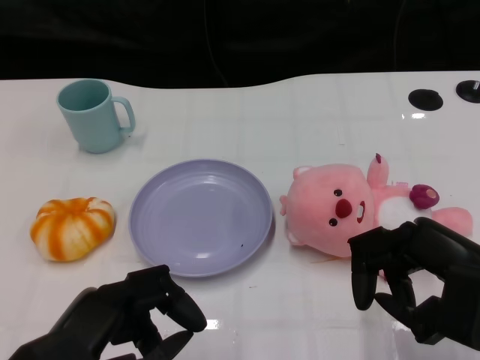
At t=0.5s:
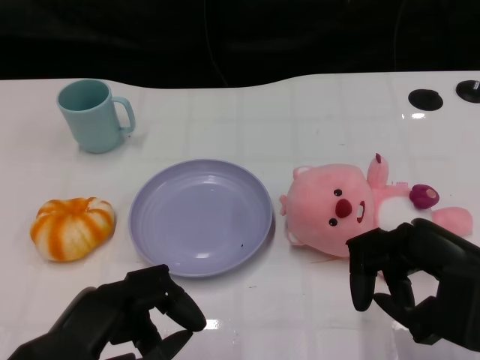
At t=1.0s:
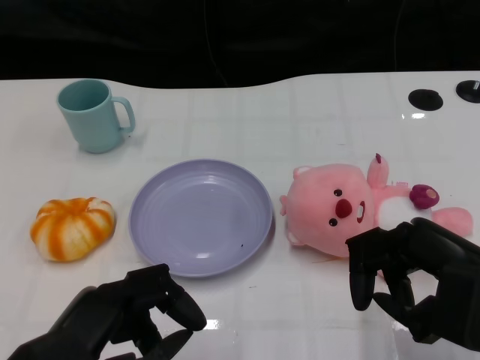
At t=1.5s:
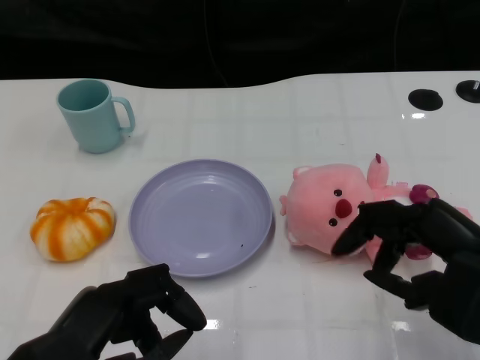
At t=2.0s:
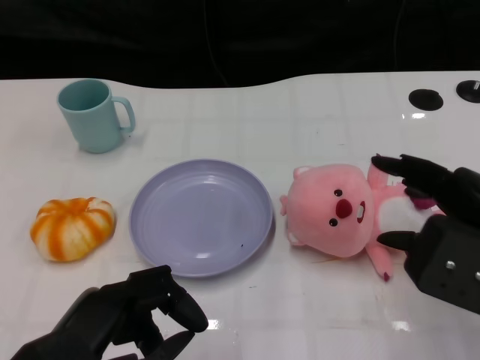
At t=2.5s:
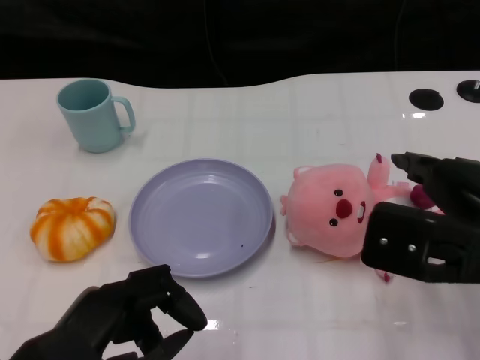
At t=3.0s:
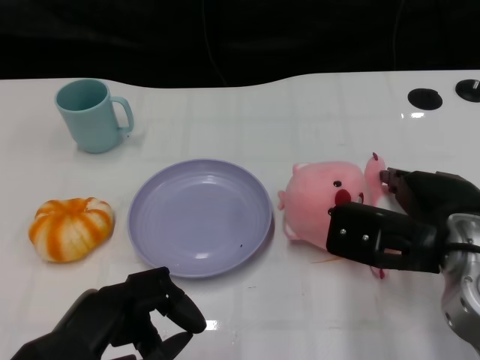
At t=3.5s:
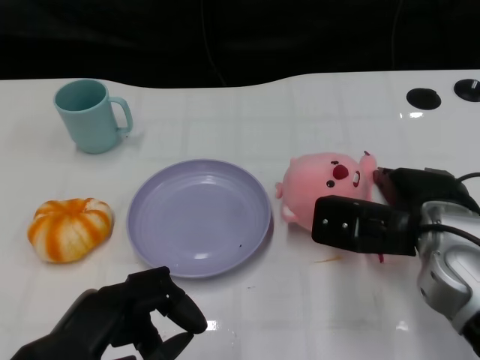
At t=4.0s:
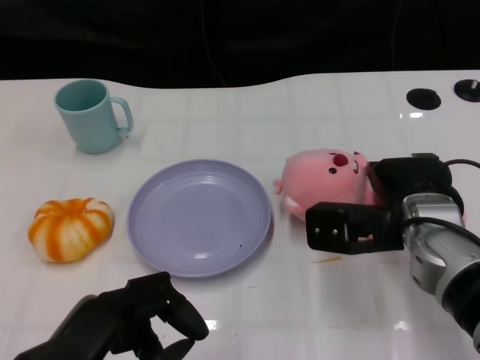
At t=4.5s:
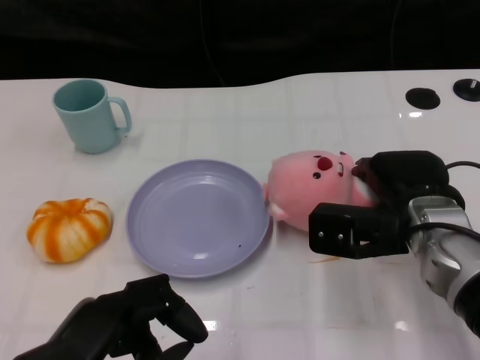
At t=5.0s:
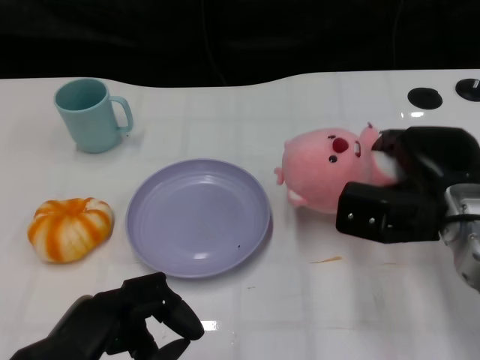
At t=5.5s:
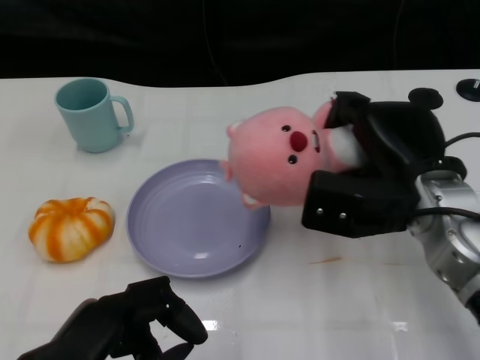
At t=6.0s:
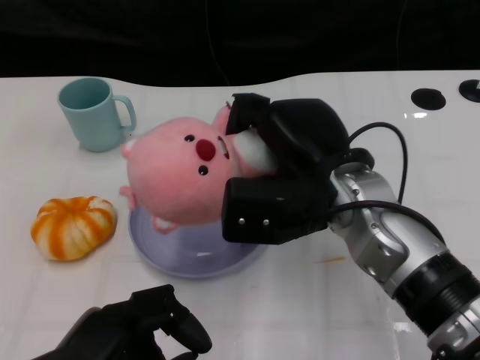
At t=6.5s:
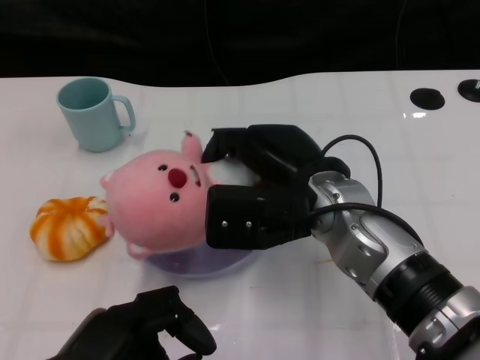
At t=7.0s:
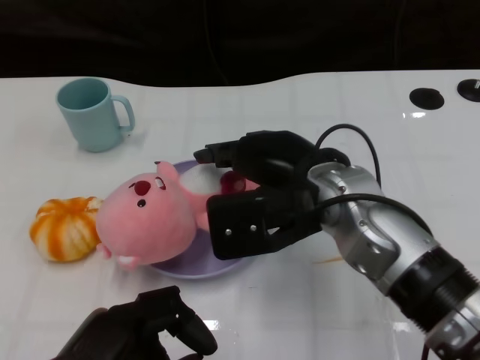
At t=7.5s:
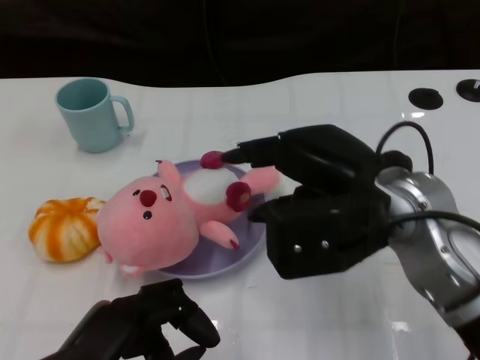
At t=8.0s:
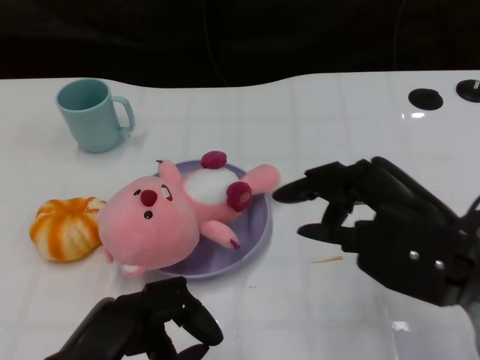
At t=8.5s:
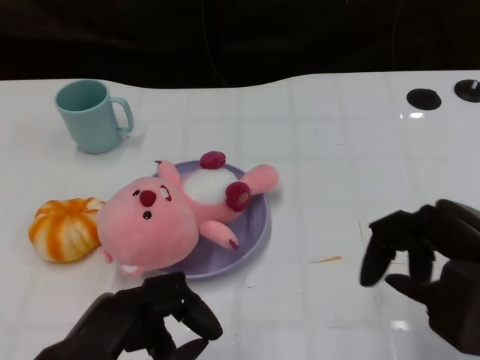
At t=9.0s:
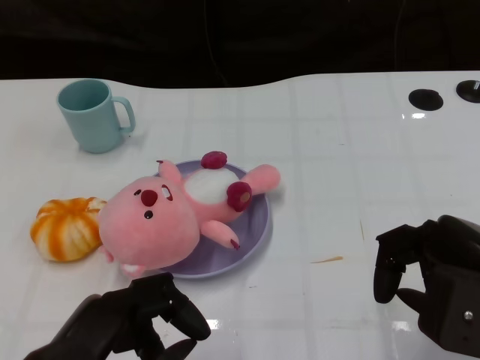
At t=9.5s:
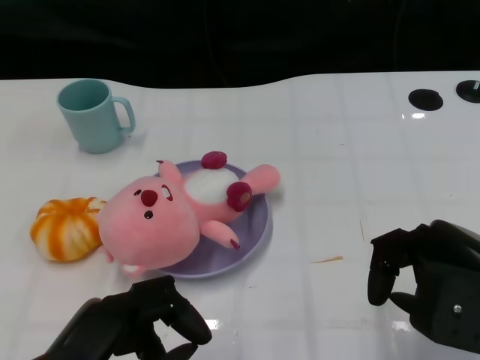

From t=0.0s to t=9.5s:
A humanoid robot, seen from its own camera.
Task of the whole recording: Pick up the doll on the other side of the plate and place it into the plate.
Step, from t=1.5s to t=5.0s: Grasp the pink doll with the right gripper.
Step, from t=5.5s to t=7.5s: Place the pink doll into the plate with the right gripper.
From t=2.0s to t=4.0s: The right hand goes approximately 15 cm forward, downward and to the left.
From t=5.5s to t=7.5s: The right hand ends up some 5 cm from where it was.
From t=7.5s to t=9.5s: The right hand shifts approximately 15 cm to the right and backward.

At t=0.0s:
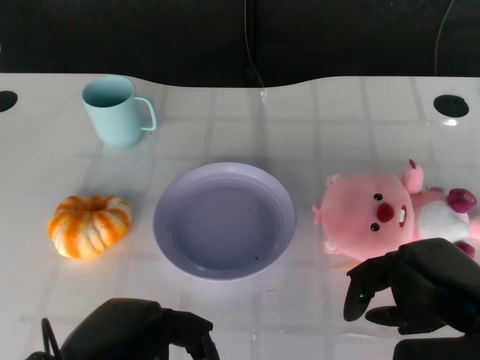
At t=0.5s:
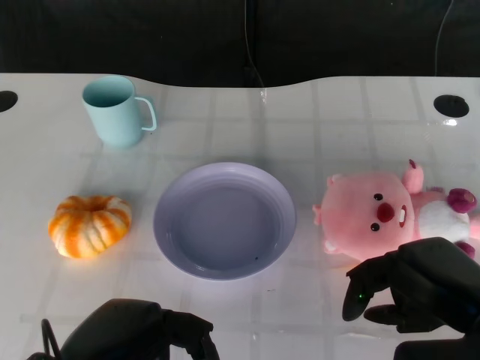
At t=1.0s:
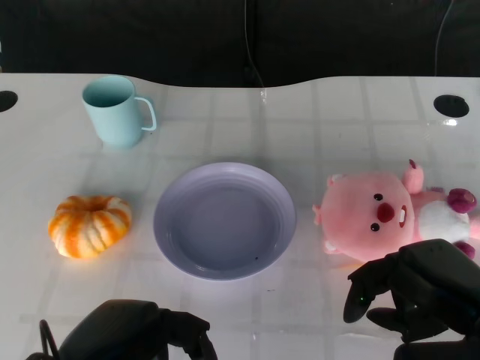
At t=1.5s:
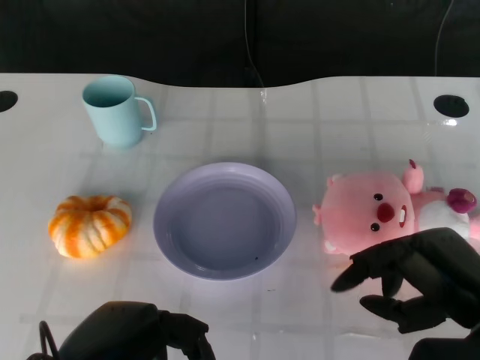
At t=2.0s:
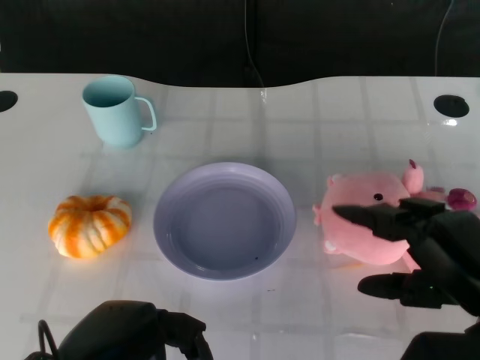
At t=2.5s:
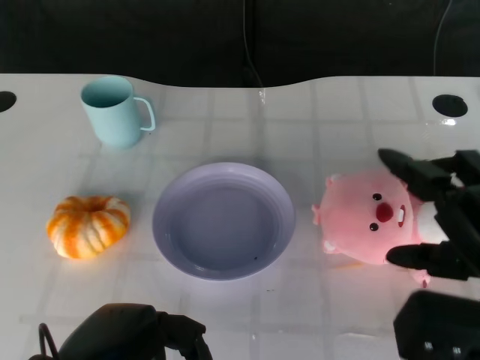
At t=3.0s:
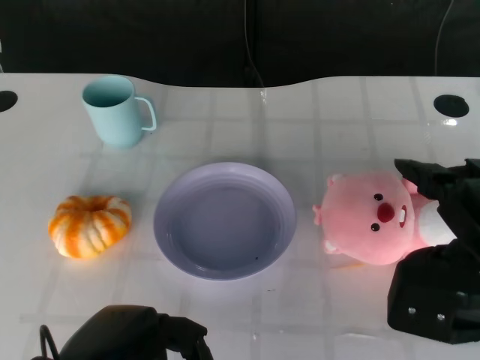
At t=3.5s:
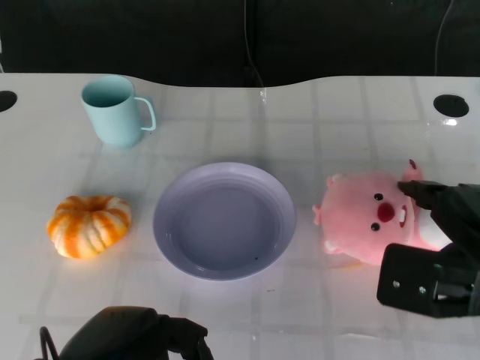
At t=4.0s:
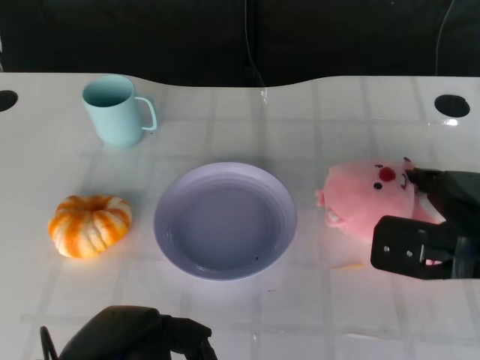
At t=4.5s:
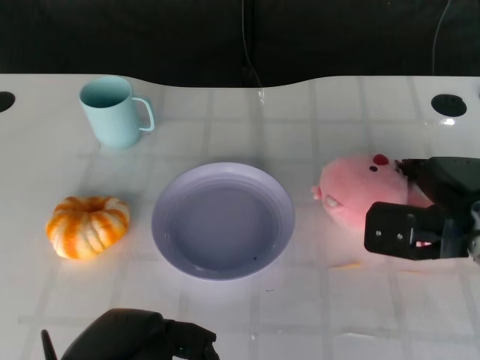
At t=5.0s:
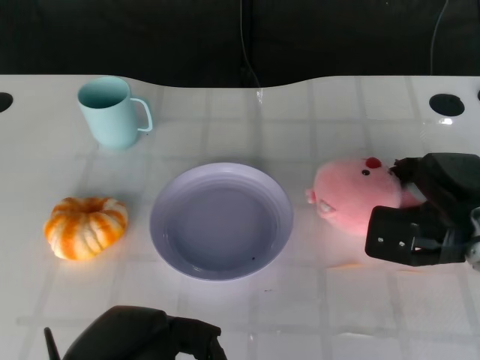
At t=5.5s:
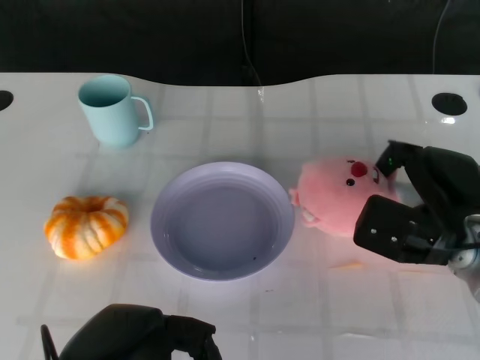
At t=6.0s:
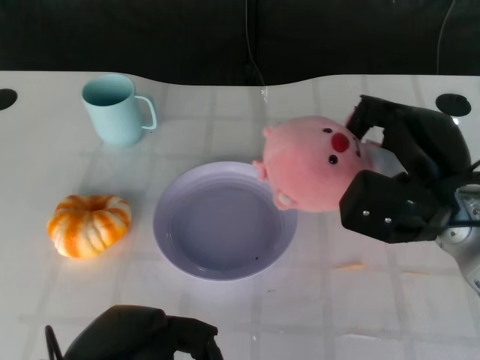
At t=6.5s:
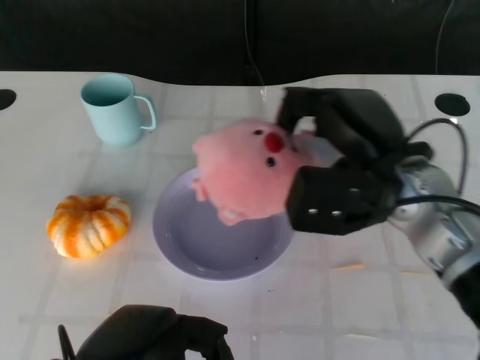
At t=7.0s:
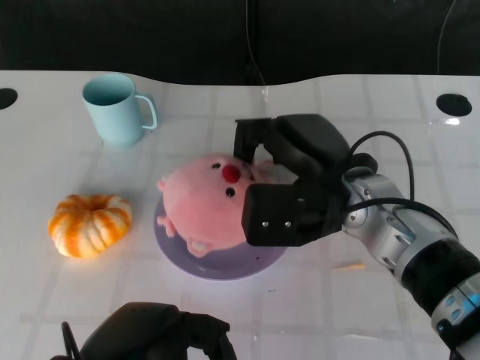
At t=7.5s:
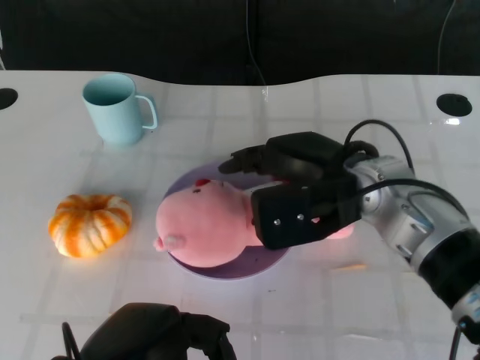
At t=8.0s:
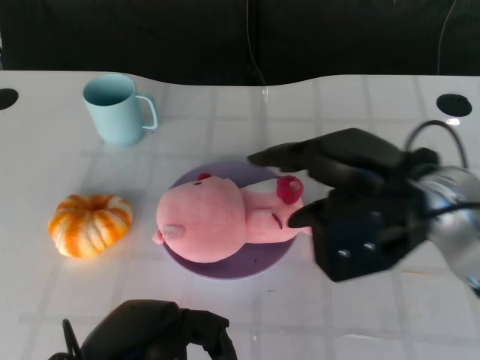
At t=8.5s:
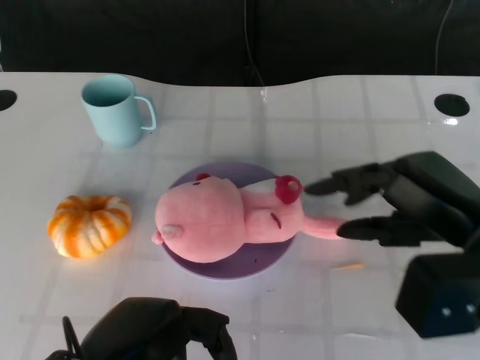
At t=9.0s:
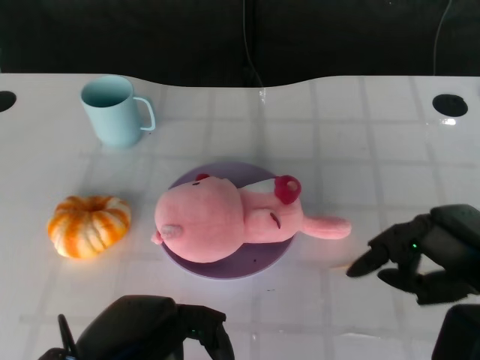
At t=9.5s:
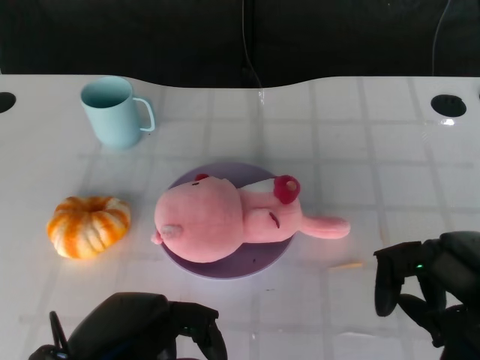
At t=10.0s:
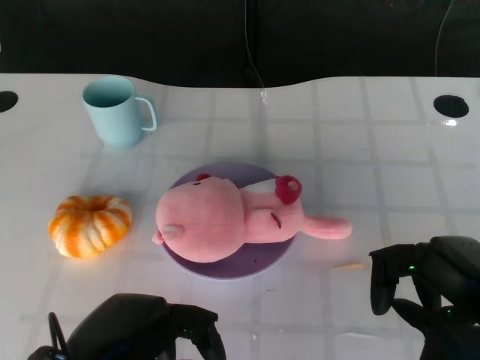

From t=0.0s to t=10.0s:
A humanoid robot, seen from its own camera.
Task of the whole recording: Pick up the doll on the other side of the plate and place it into the plate.
Step, from t=1.0s to t=6.0s: Grasp the pink doll with the right gripper.
Step, from t=6.5s to t=8.0s: Place the pink doll into the plate with the right gripper.
From t=2.0s to t=4.0s: The right hand travels forward by roughly 10 cm.
From t=4.0s to t=6.0s: The right hand moves about 5 cm.
From t=6.0s to t=8.0s: The right hand heads upward, covering some 5 cm.
From t=8.0s to t=10.0s: The right hand heads backward, to the right and downward, covering roughly 15 cm.

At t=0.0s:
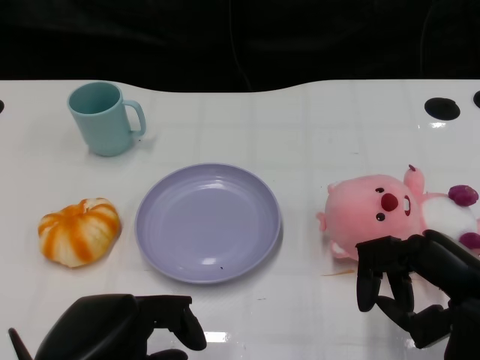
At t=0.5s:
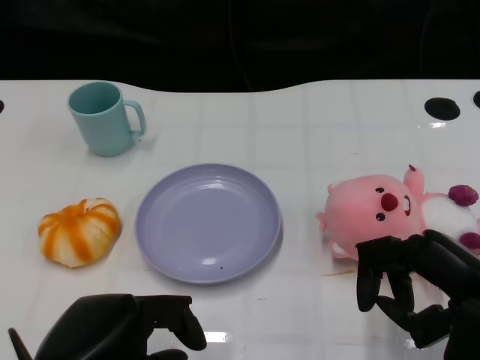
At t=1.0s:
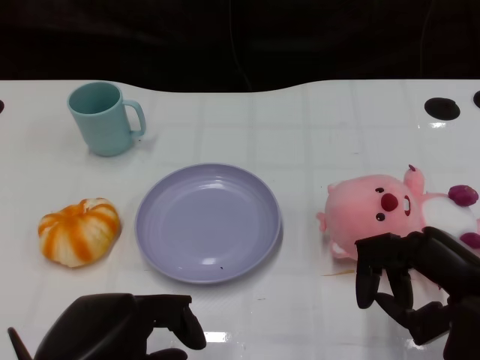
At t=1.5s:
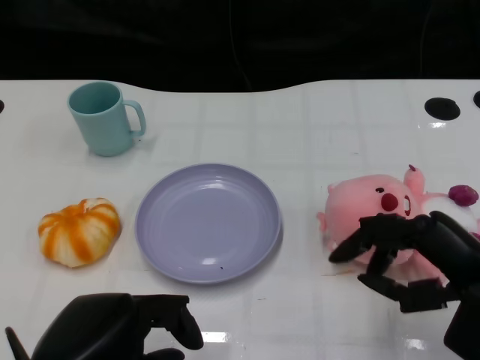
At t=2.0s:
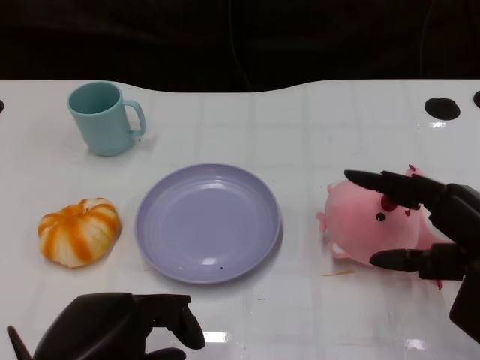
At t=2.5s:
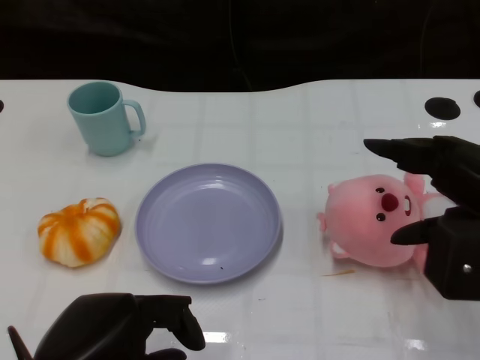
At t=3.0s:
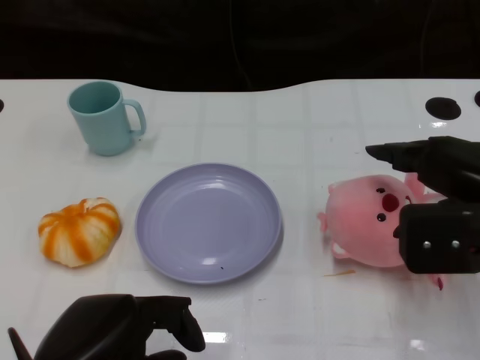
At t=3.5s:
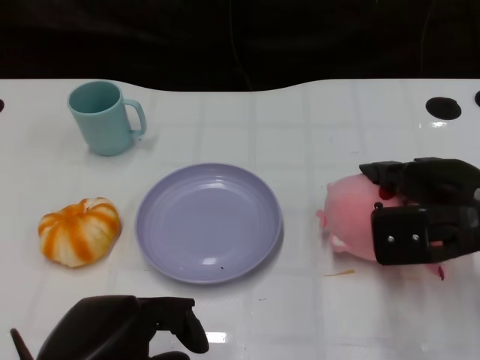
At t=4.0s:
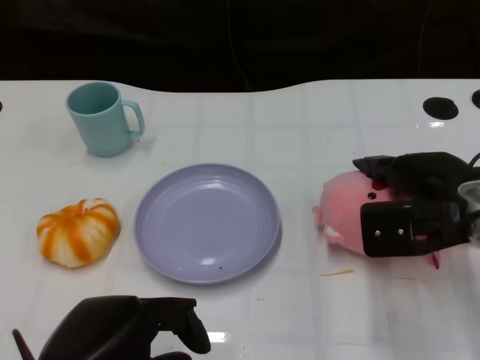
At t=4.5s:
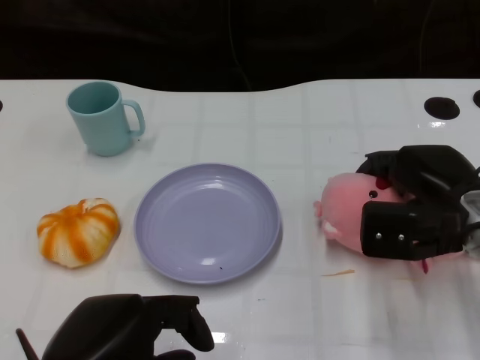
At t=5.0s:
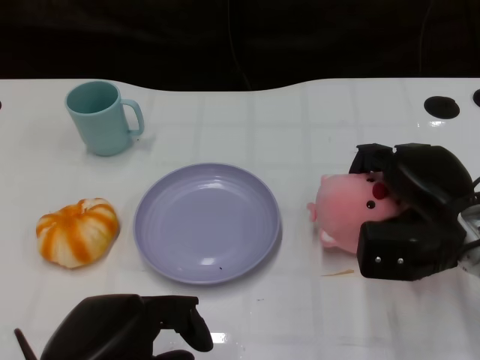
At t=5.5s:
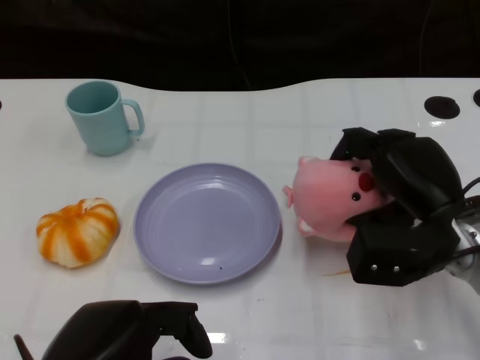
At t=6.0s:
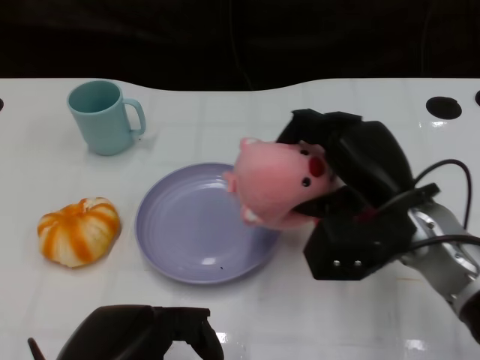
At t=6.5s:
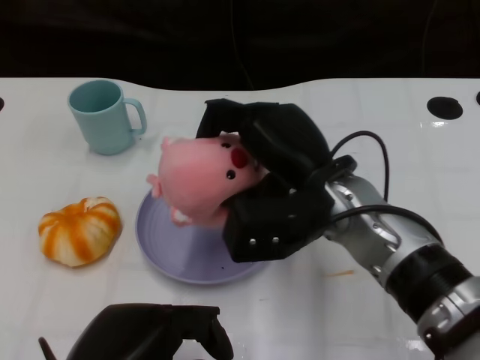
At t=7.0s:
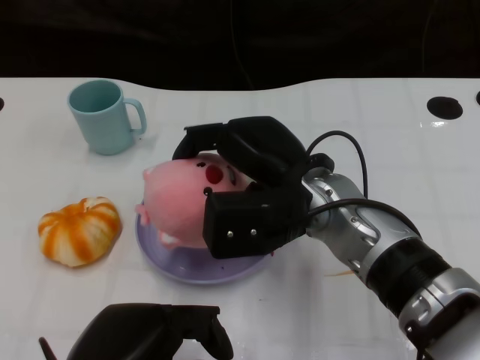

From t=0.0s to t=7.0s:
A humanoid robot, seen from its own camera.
Task of the whole recording: Pick up the doll on the other side of the plate and place it into the plate.
Step, from t=1.0s to t=5.5s: Grasp the pink doll with the right gripper.
From t=2.0s to t=3.5s: The right hand goes approximately 10 cm forward.
From t=5.0s to t=7.0s: The right hand moves to the left, approximately 15 cm.
